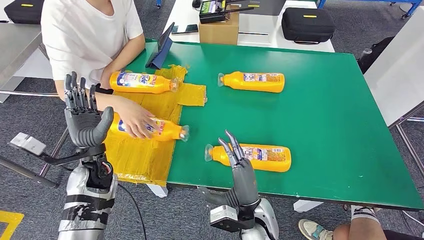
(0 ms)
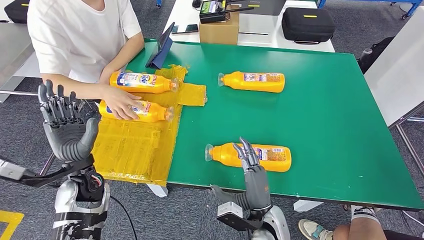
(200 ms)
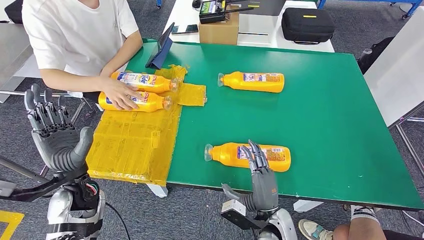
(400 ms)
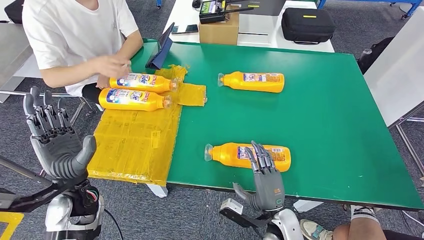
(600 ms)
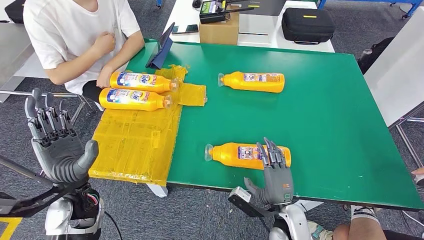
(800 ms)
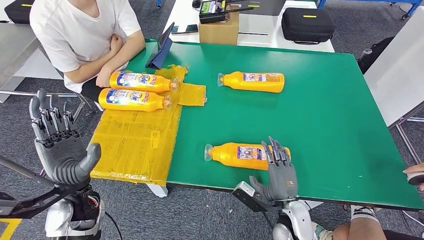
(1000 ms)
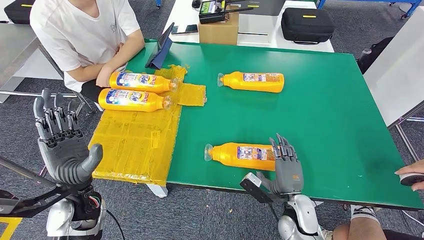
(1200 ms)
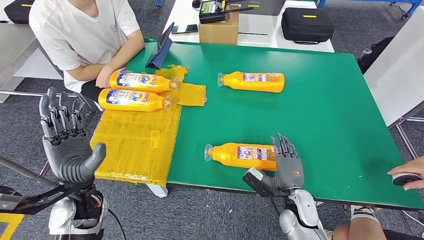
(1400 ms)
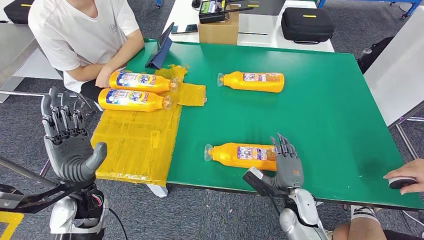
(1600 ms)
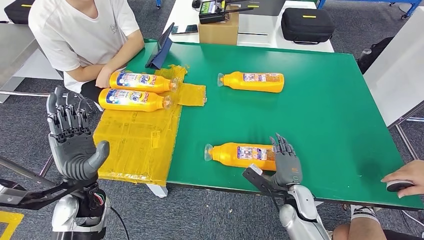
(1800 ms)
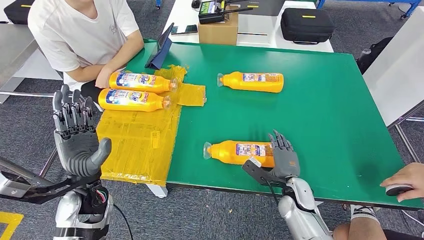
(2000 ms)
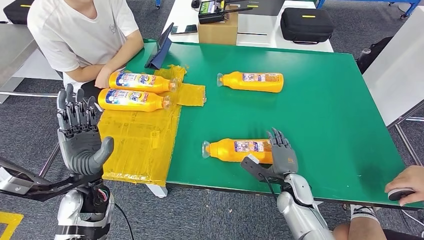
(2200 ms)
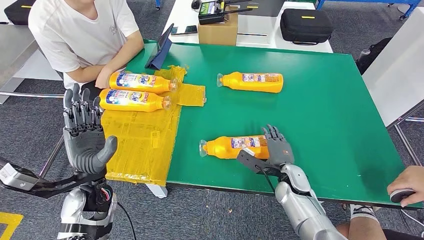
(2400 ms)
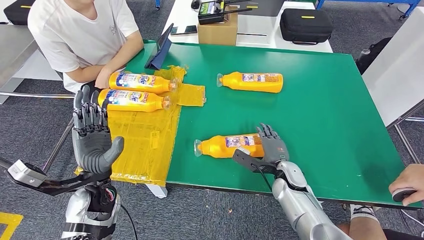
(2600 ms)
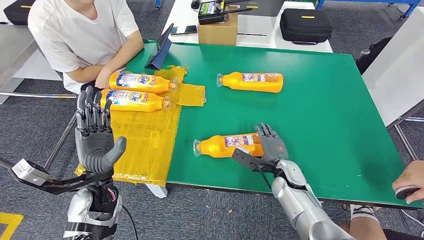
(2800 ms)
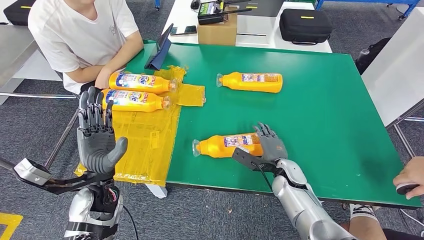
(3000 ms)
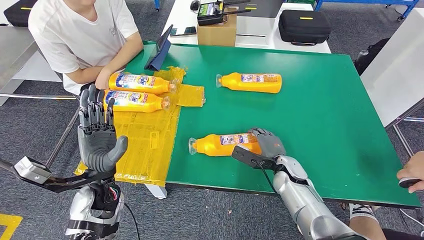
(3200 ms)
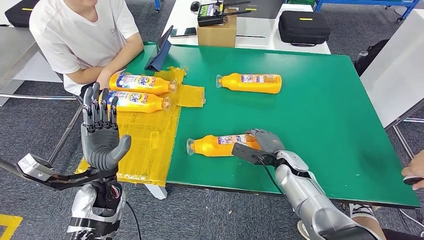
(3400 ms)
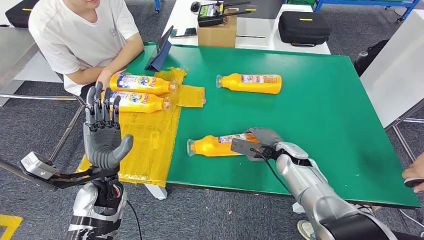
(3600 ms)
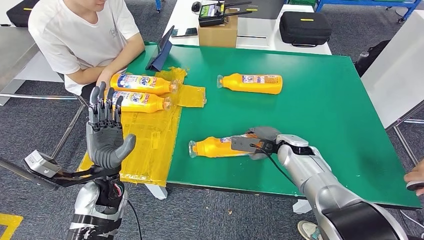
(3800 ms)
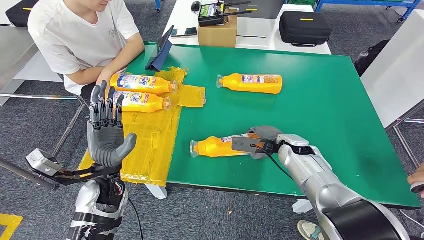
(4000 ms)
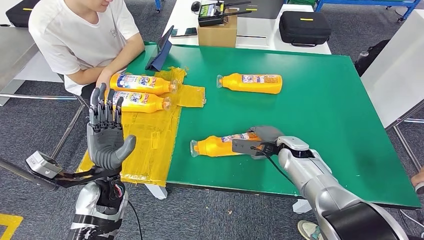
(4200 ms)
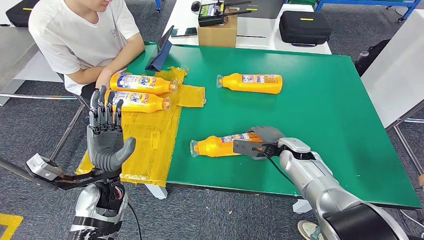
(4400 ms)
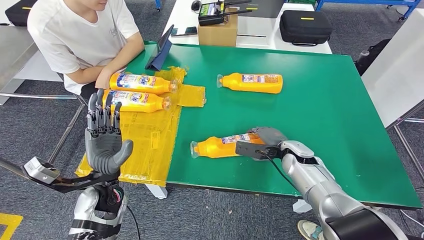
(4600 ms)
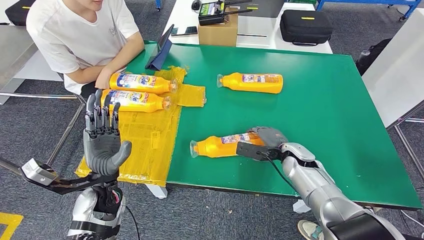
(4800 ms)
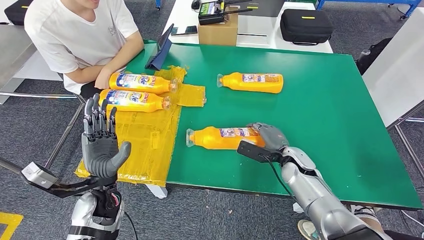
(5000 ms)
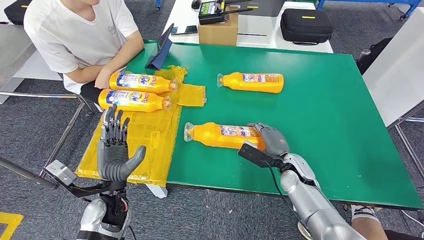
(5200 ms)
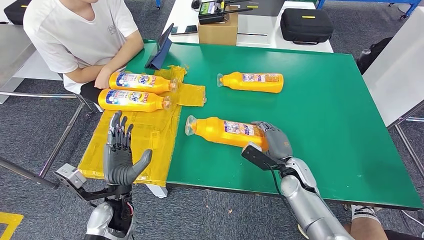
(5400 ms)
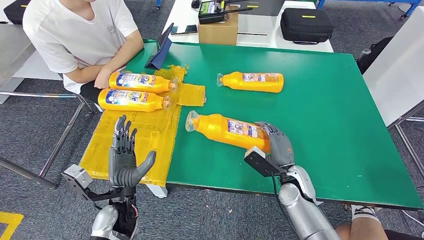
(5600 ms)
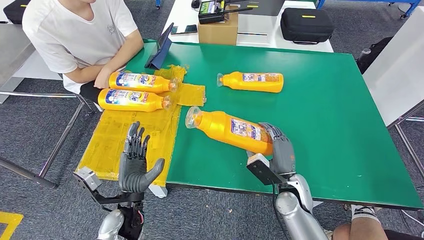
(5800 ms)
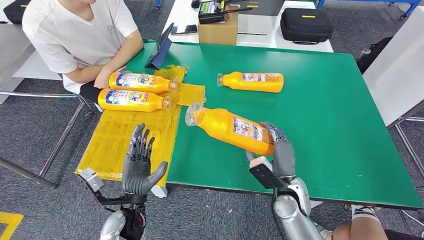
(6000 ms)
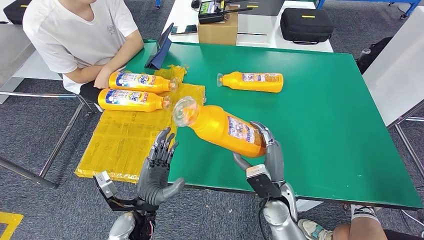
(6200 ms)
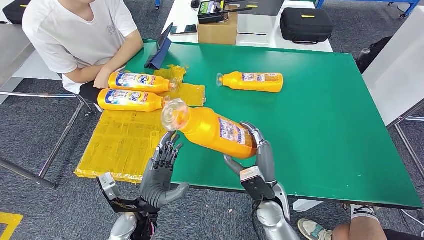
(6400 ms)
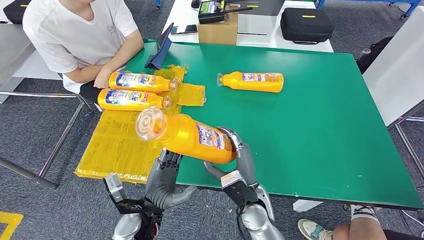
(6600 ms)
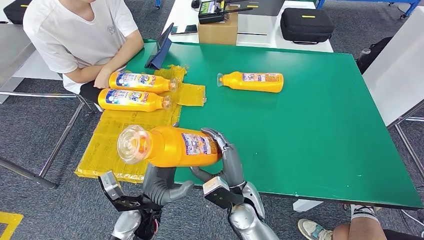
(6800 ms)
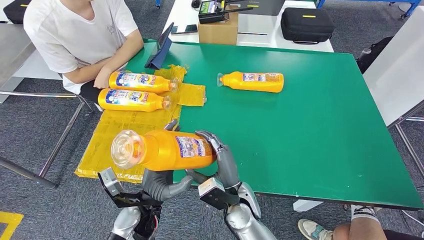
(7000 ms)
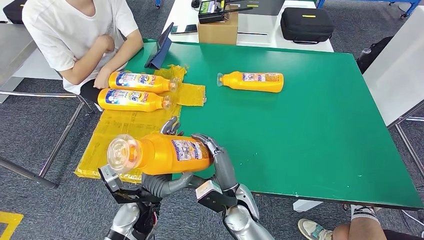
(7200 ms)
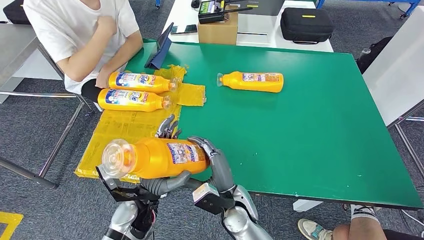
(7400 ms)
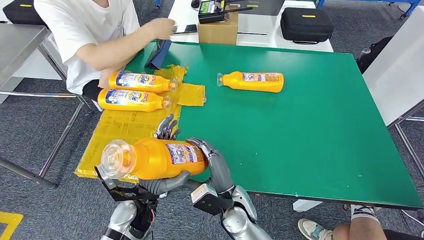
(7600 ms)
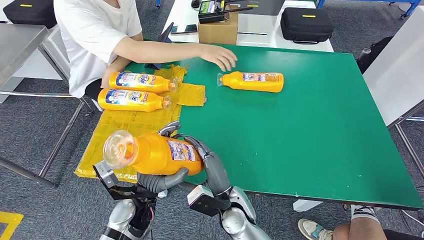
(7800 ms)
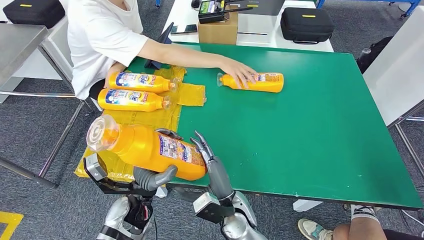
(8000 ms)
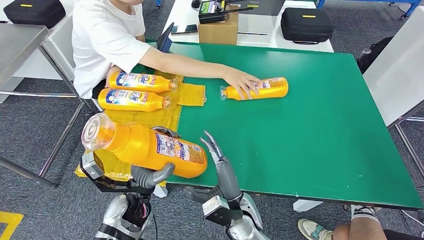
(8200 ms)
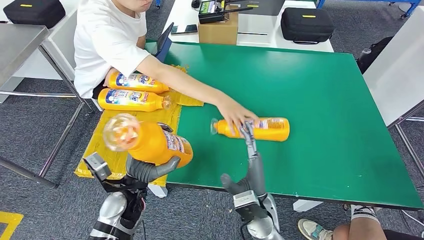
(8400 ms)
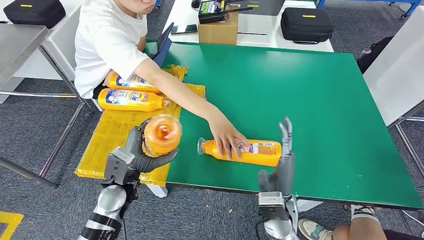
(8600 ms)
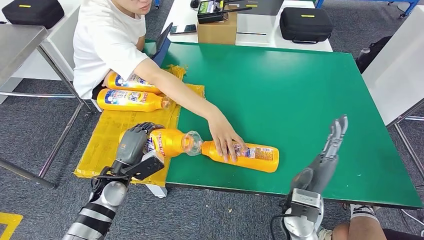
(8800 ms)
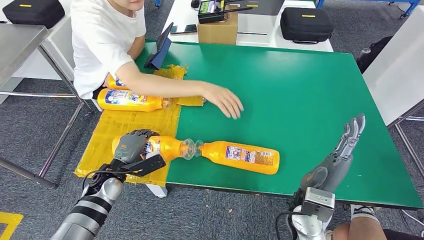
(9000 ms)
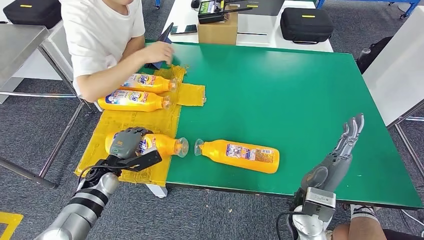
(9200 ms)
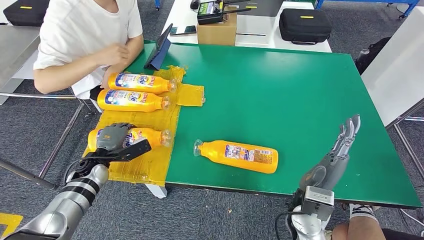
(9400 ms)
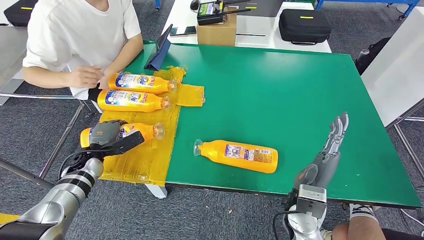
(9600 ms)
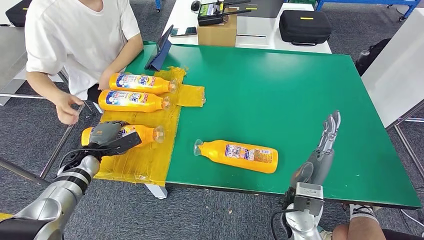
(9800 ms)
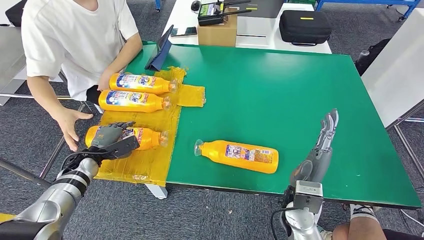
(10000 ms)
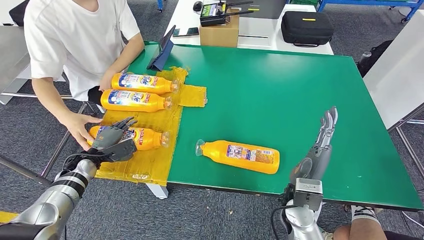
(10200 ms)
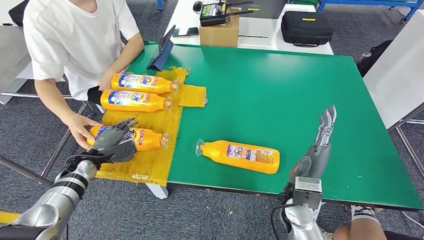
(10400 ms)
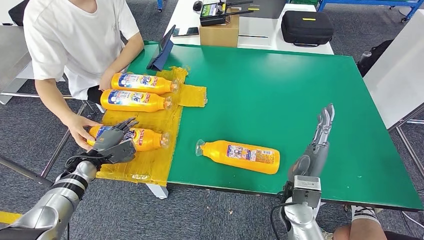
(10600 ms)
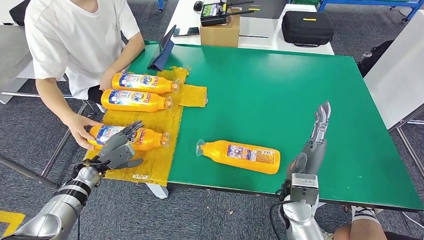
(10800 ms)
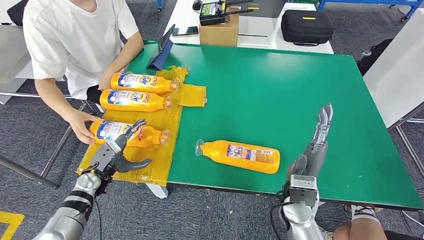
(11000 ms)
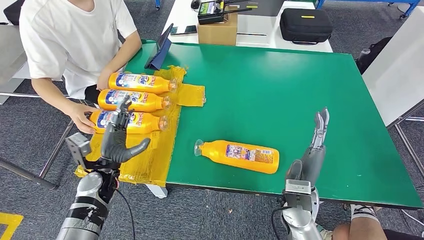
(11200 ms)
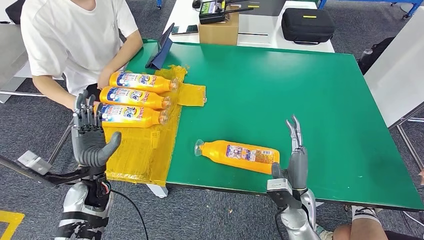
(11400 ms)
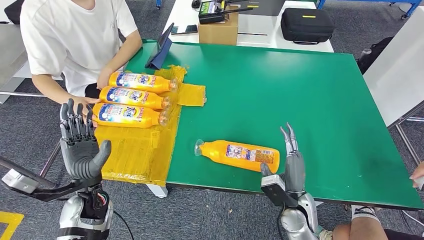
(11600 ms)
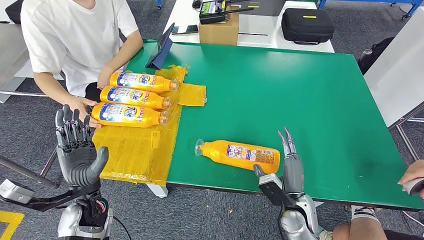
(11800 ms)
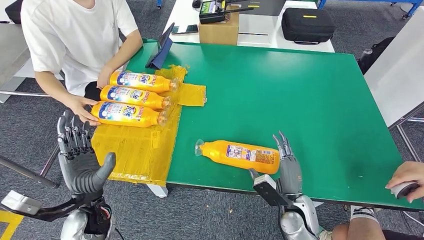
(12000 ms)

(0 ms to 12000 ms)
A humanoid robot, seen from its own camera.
Step, 800 ms - 8400 ms: Pick up the bottle from the table.

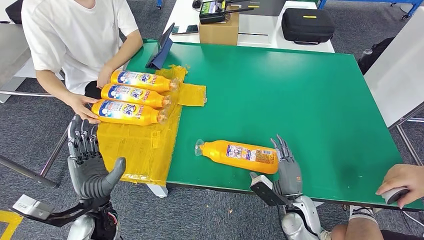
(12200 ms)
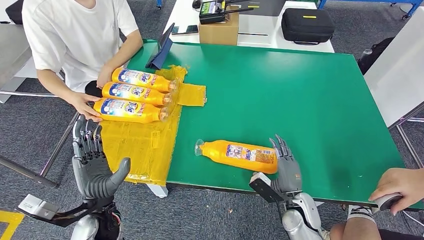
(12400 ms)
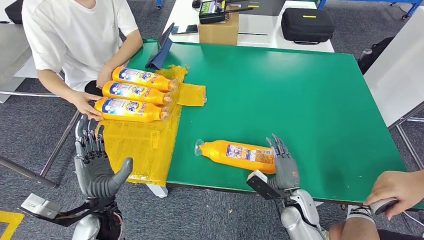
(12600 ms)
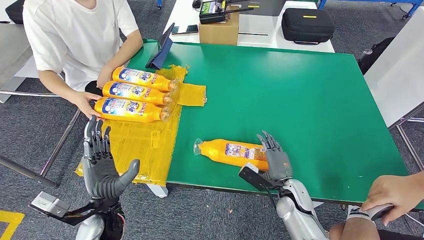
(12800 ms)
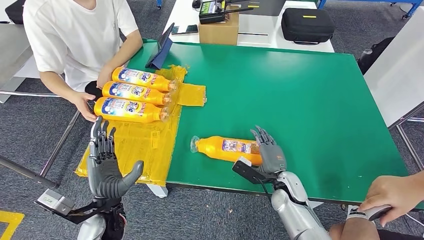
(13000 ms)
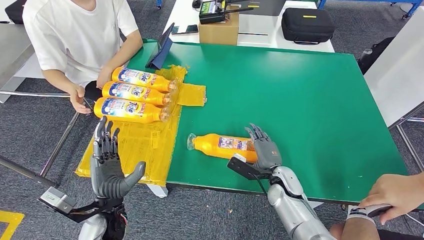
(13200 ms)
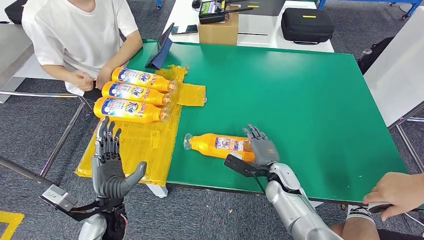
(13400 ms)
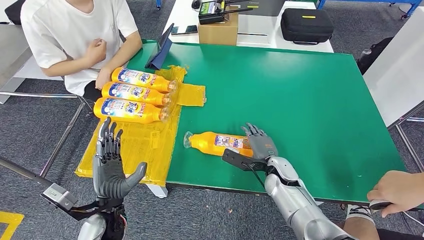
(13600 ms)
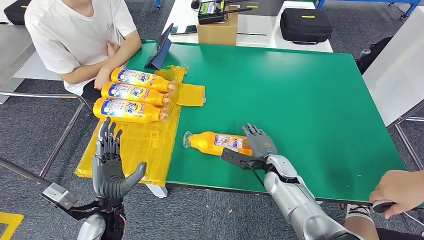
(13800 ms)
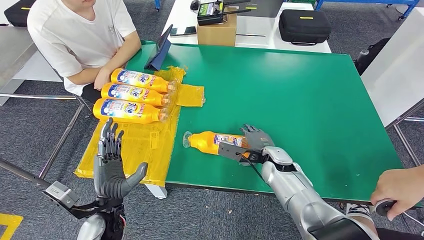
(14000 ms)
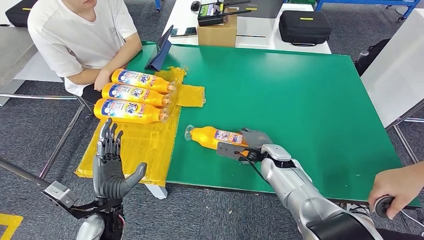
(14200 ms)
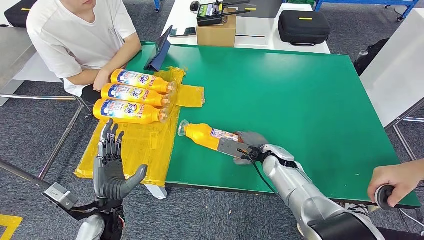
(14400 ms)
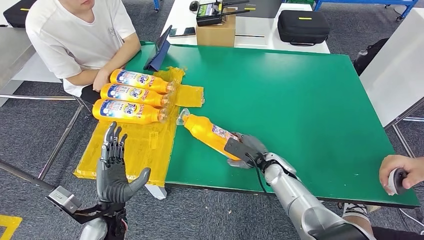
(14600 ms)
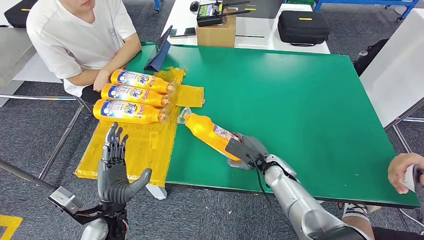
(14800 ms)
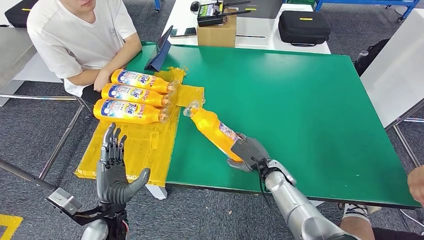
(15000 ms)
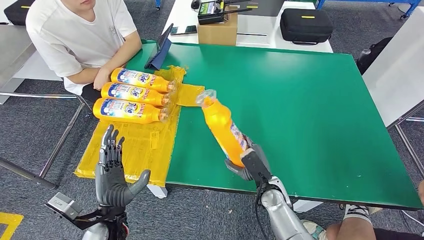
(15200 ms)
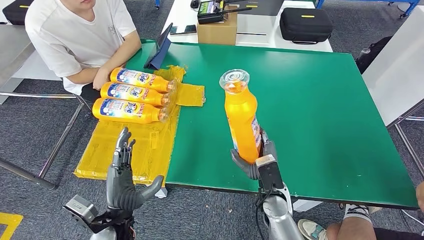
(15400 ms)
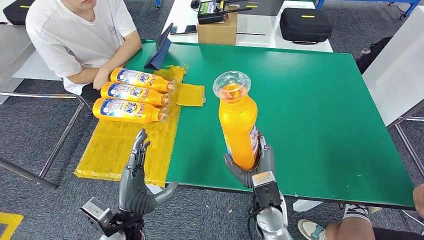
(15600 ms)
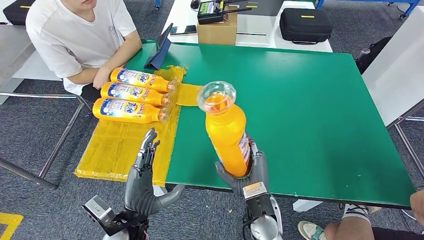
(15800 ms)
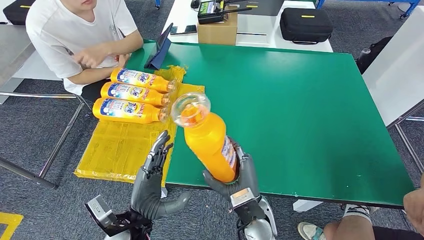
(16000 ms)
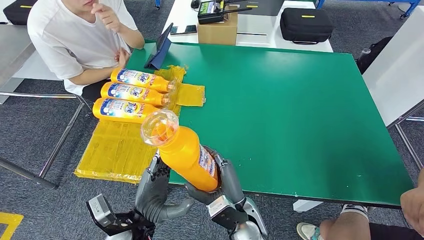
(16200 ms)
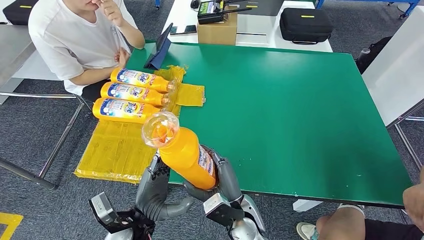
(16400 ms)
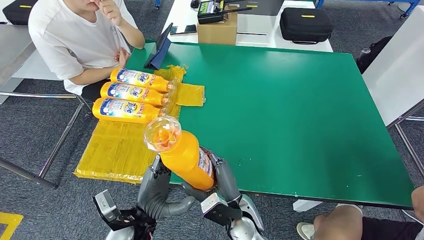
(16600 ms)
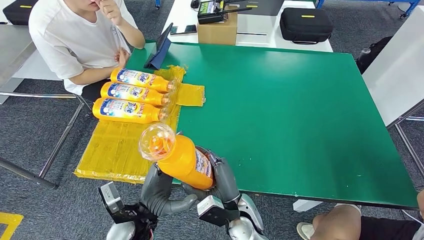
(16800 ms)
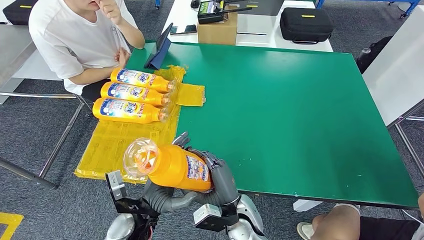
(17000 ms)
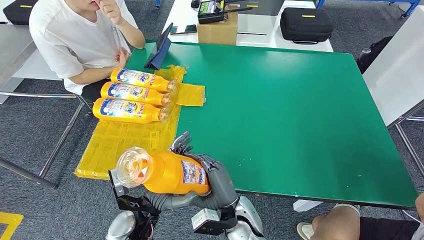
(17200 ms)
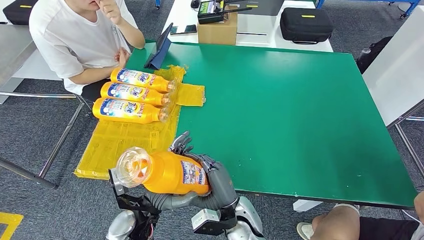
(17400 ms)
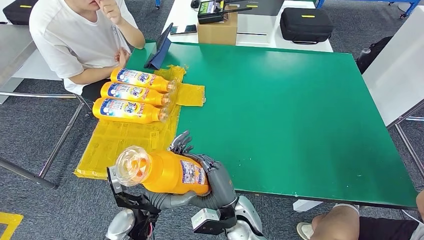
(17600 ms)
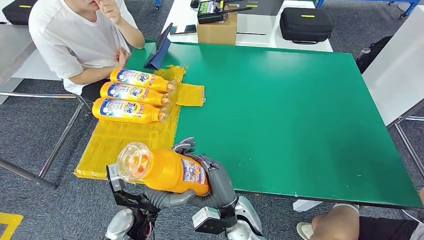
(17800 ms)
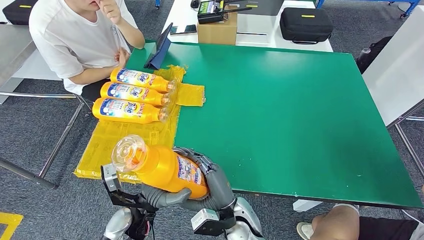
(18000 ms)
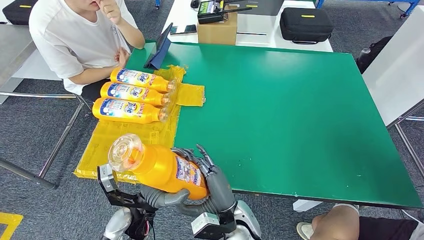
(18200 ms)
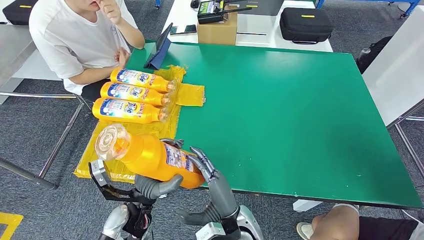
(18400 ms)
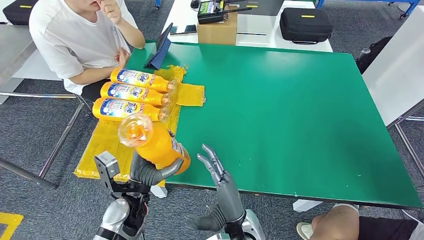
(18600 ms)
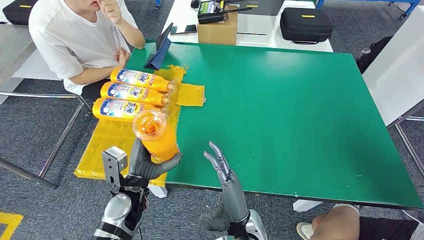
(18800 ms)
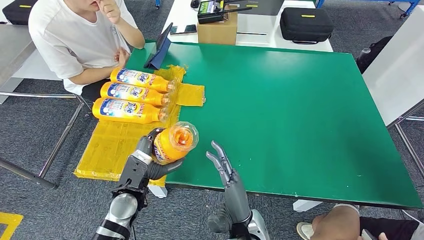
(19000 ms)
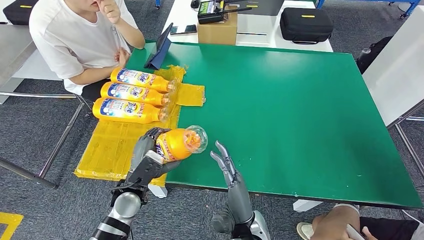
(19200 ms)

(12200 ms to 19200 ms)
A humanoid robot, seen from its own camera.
Step, 12200 ms - 17800 ms: Pick up the bottle from the table.
12200 ms - 13600 ms: The right hand is displaced forward by roughly 10 cm.
16400 ms - 17800 ms: The hands stay close to where they were, moving slightly.
17800 ms - 19200 ms: The right hand shifts by some 5 cm; the left hand shifts roughly 5 cm forward.
